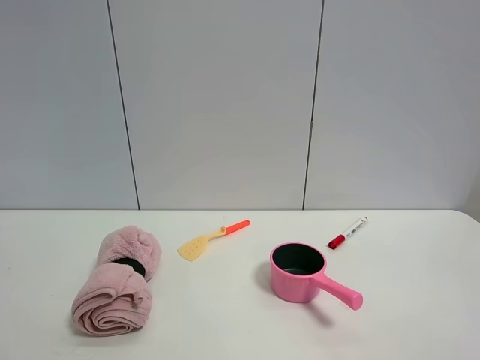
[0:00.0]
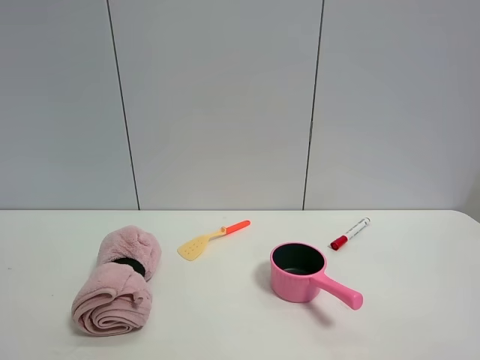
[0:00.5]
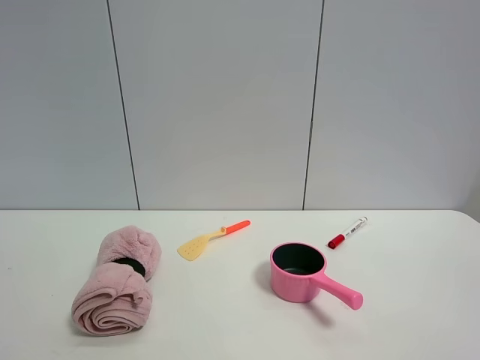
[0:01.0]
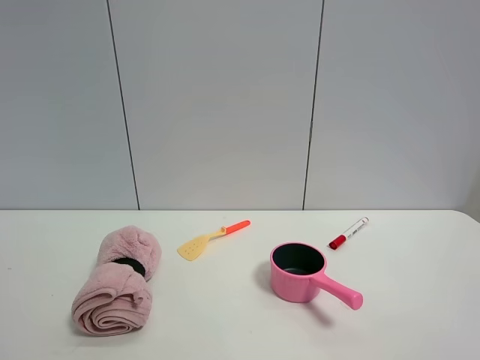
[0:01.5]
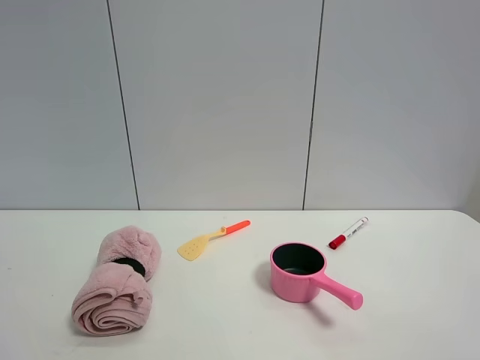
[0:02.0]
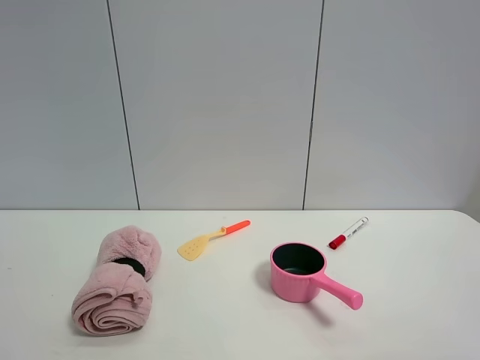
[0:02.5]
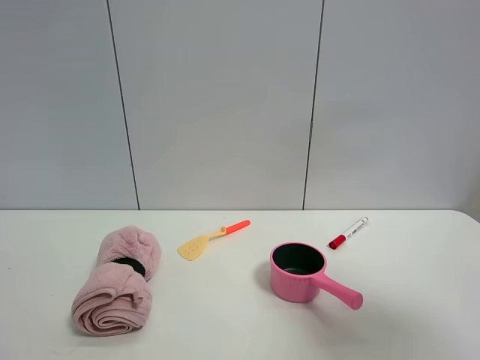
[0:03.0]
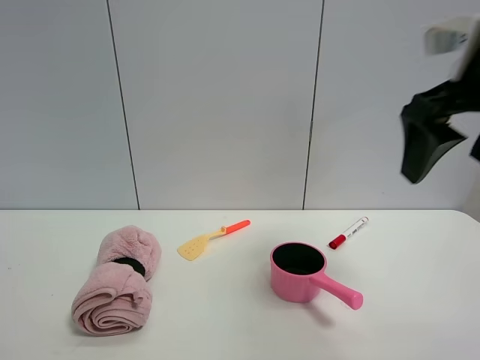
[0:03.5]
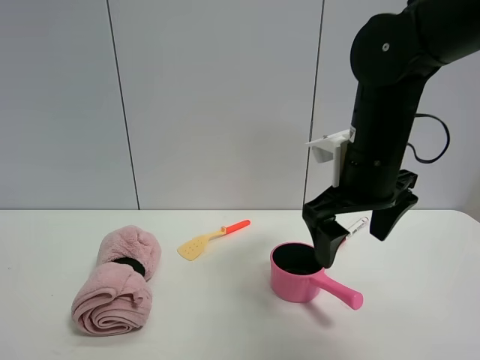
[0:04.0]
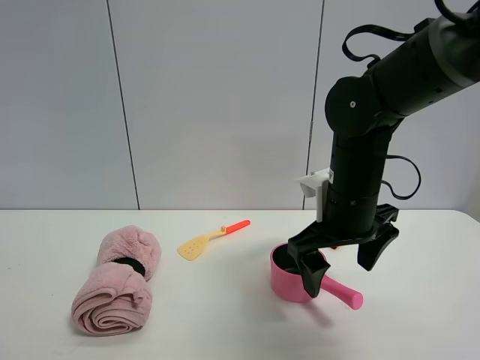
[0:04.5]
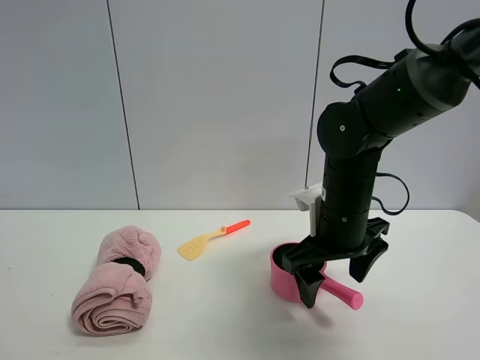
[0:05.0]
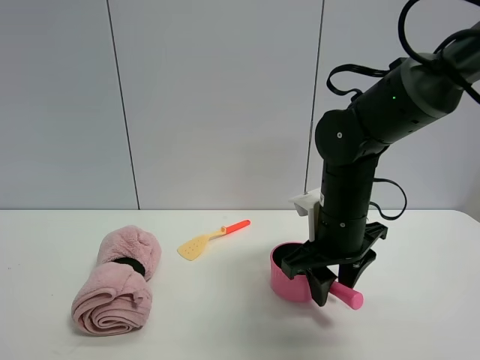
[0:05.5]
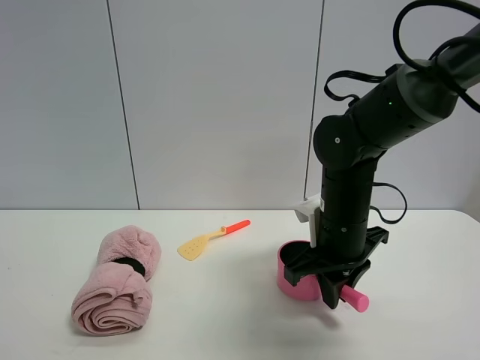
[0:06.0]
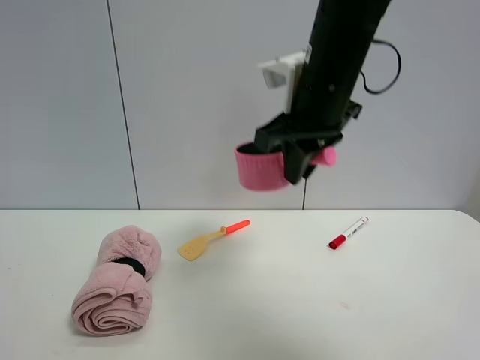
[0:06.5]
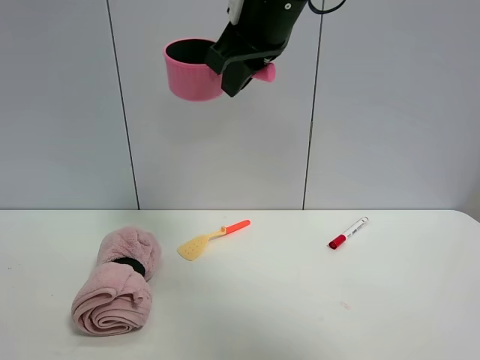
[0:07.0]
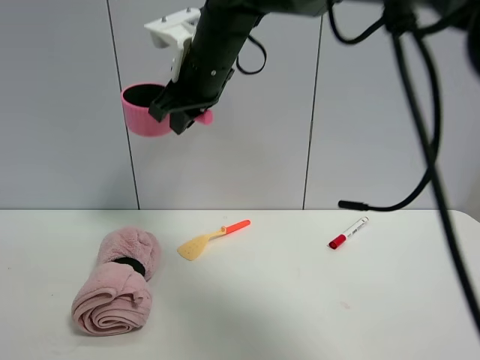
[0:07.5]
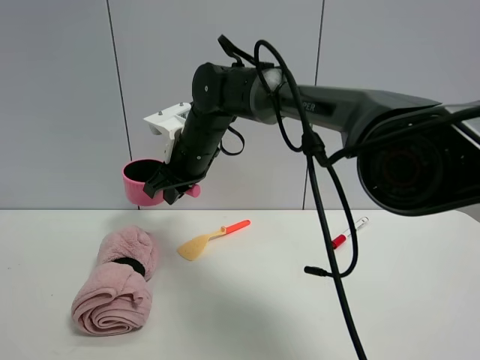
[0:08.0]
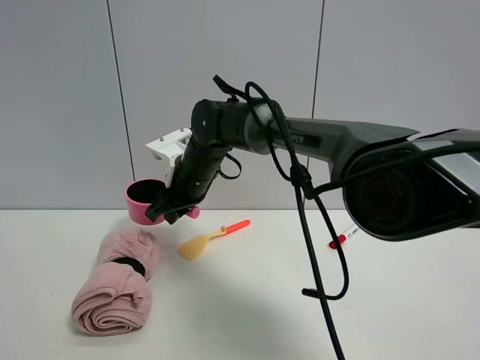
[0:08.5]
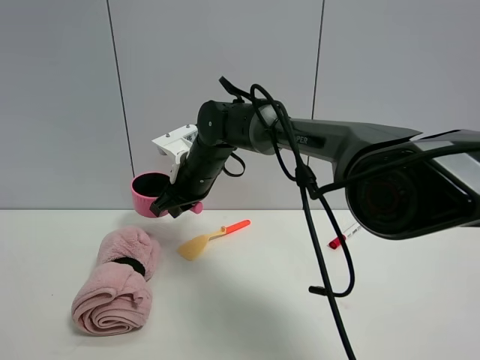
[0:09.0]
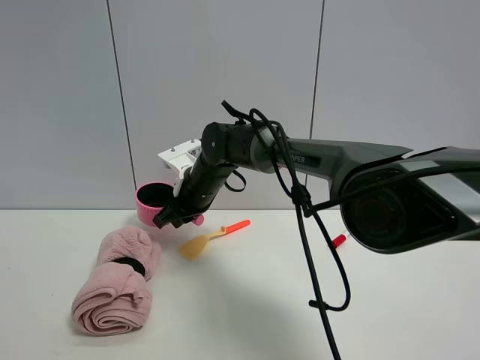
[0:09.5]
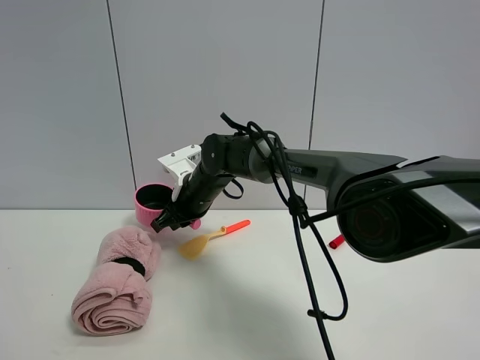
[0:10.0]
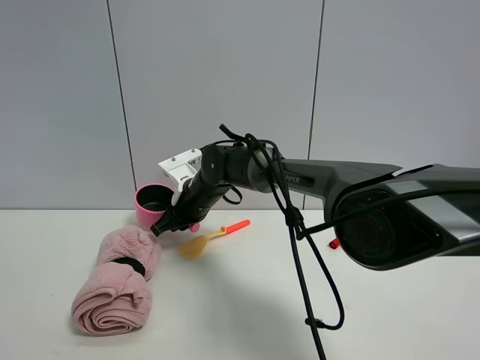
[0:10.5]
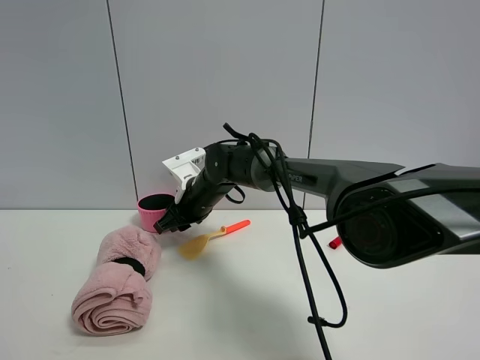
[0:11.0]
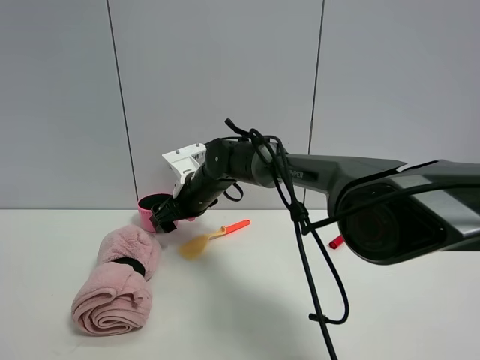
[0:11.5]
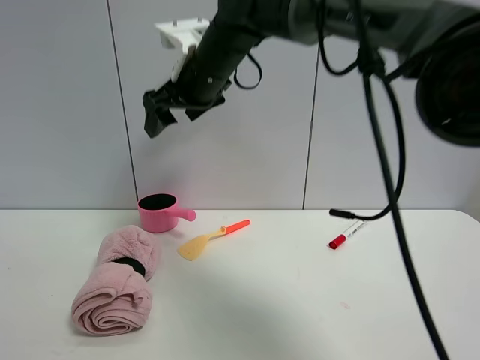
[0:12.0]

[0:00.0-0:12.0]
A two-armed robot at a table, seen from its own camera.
Task of the whole recording: the gripper move the object.
Step, 0:00.0 to 0:05.5: Grasp the pink pot with the right gripper.
Step, 0:06.0 to 0:11.5: Place the pink pot on the table with the right gripper.
0:00.0 to 0:02.0: Neither gripper changes place.
0:02.0 to 0:04.0: The right gripper goes some 35 cm forward and to the left.
0:04.0 to 0:06.0: The right gripper goes about 10 cm downward, and closes its fingers.
0:06.0 to 0:08.0: The right gripper goes some 20 cm to the left and forward, and reaches roughly 25 cm upward, then returns.
0:08.0 to 0:10.0: The right gripper goes about 10 cm downward.
0:10.0 to 0:12.0: The right gripper moves upward, roughly 20 cm, and opens.

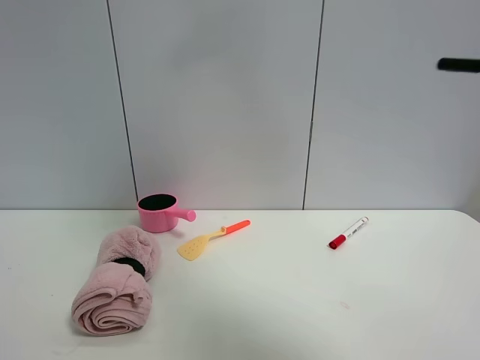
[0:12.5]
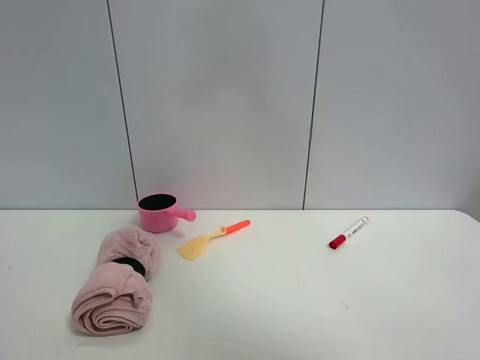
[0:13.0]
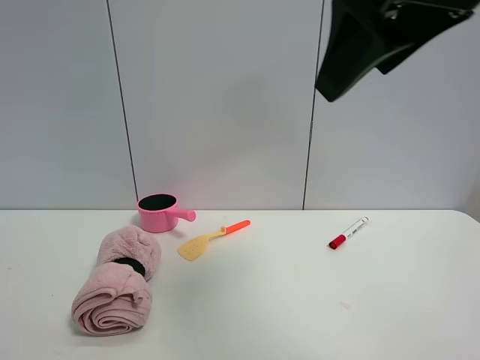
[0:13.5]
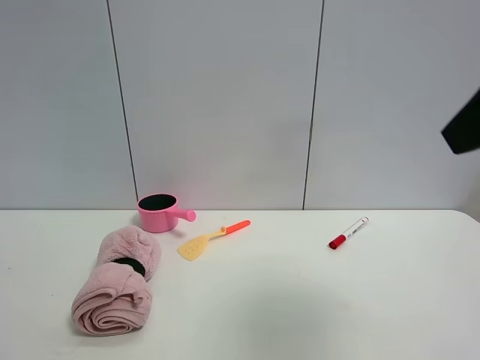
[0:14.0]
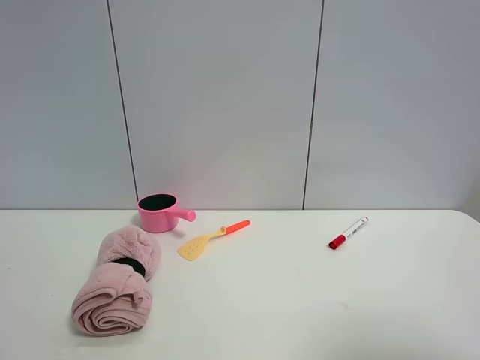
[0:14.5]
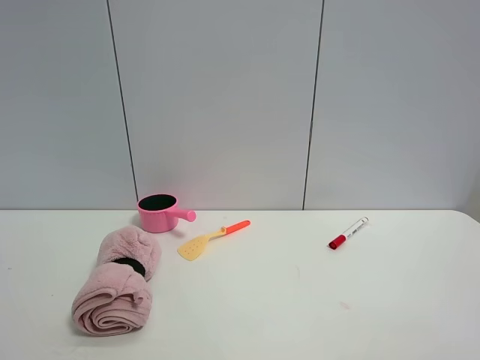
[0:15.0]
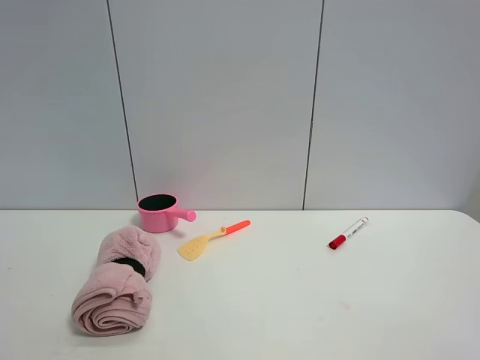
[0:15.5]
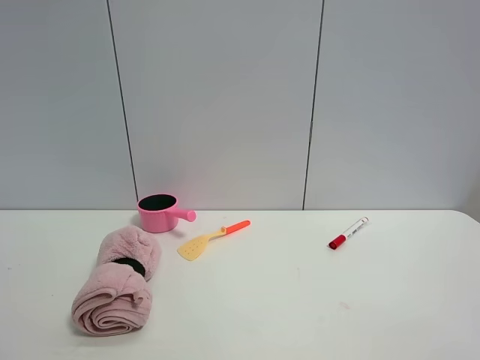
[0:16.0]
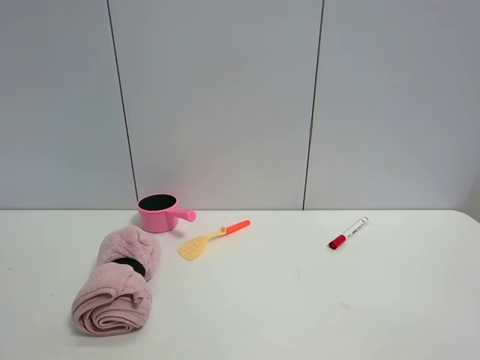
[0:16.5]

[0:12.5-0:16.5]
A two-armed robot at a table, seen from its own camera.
Task of the whole recording: the gripper move the object.
0:12.5 to 0:14.5: The right gripper is displaced to the right, backward and downward by roughly 40 cm.
0:14.5 to 0:16.5: The right gripper travels backward by approximately 5 cm.

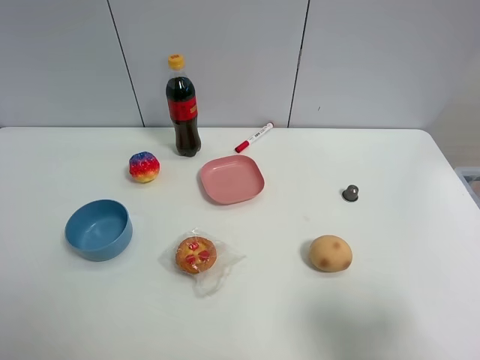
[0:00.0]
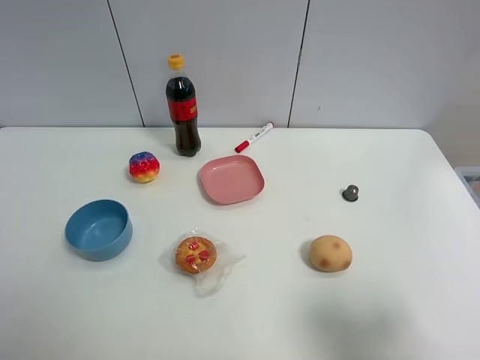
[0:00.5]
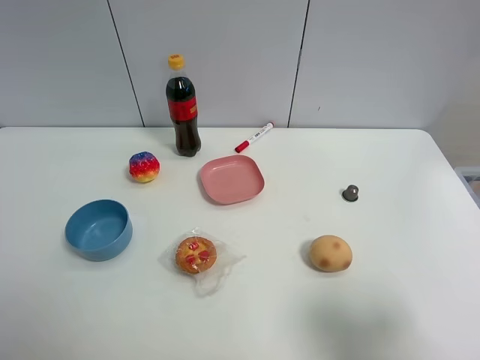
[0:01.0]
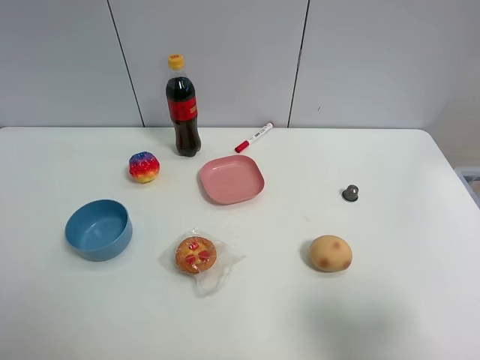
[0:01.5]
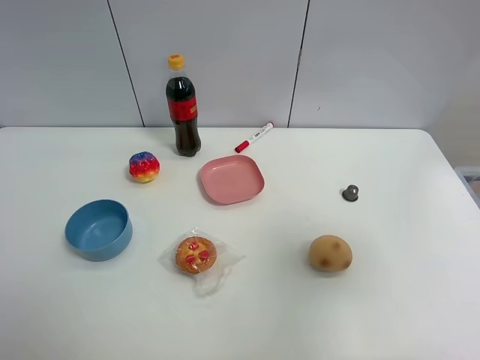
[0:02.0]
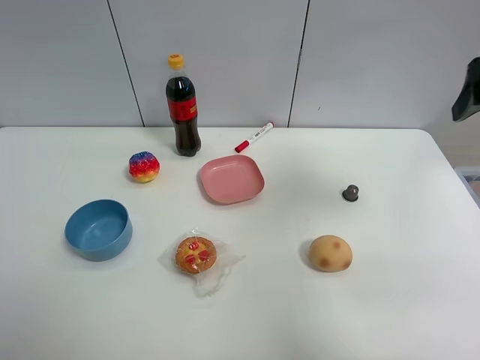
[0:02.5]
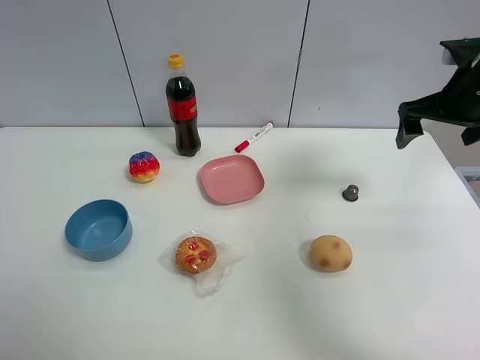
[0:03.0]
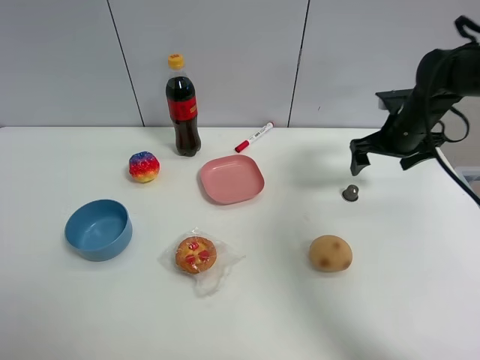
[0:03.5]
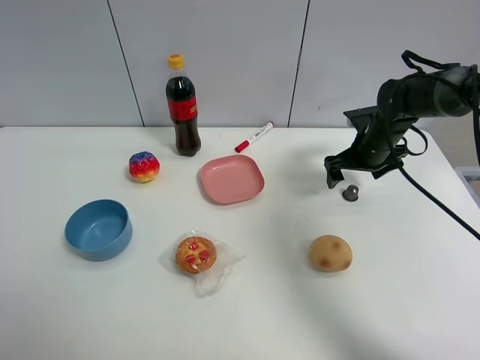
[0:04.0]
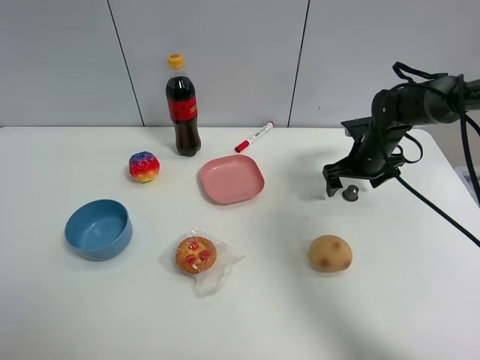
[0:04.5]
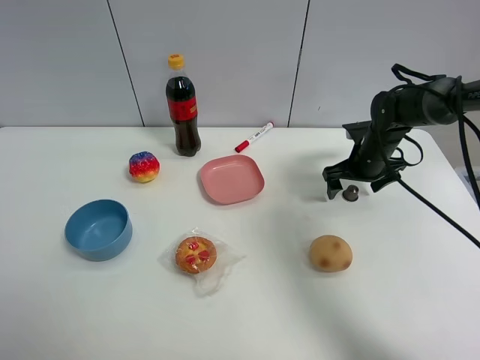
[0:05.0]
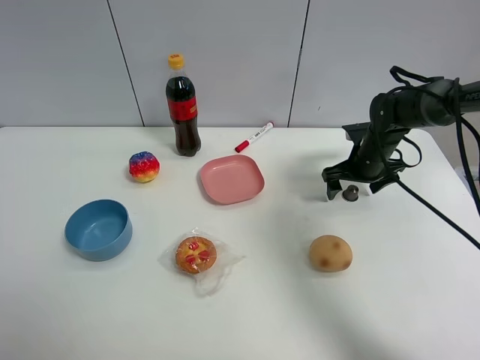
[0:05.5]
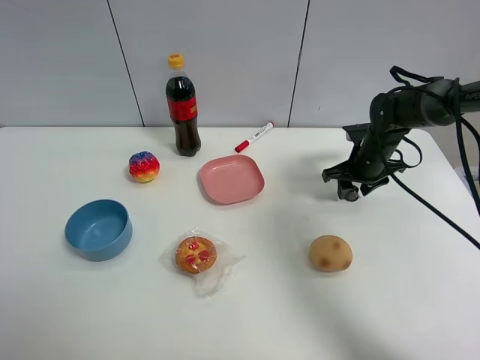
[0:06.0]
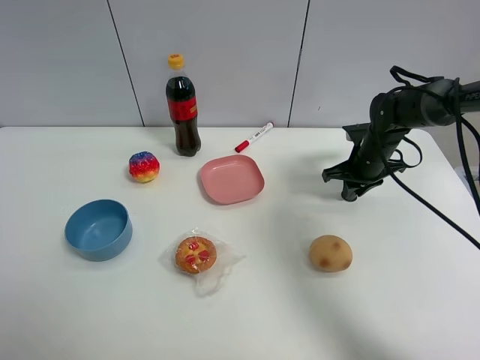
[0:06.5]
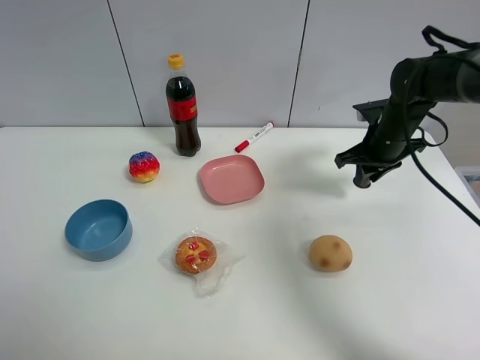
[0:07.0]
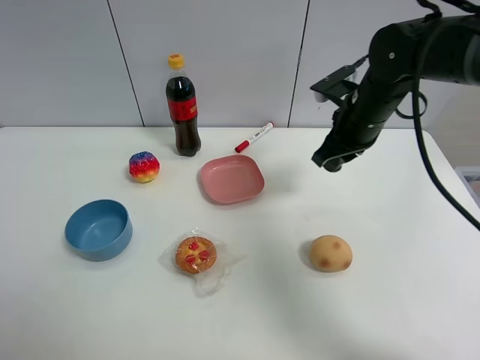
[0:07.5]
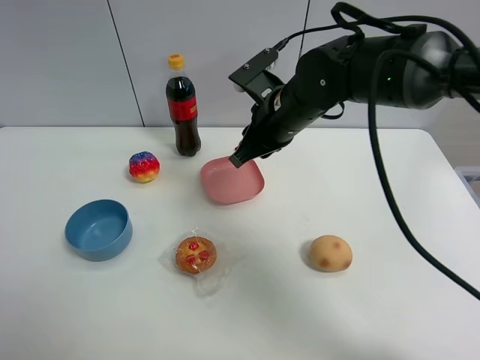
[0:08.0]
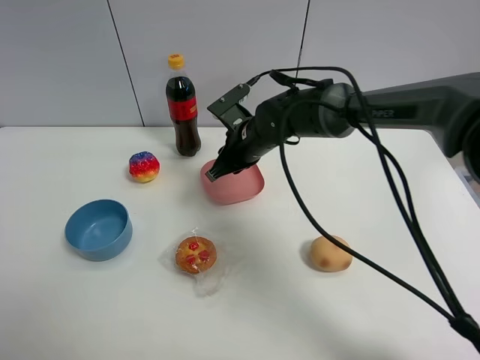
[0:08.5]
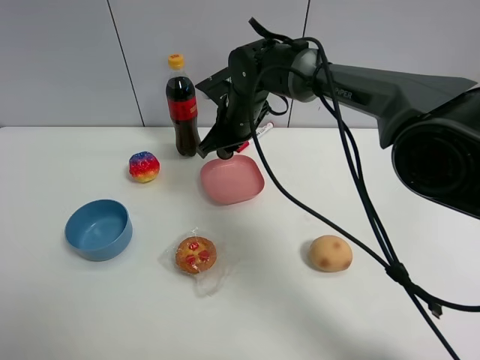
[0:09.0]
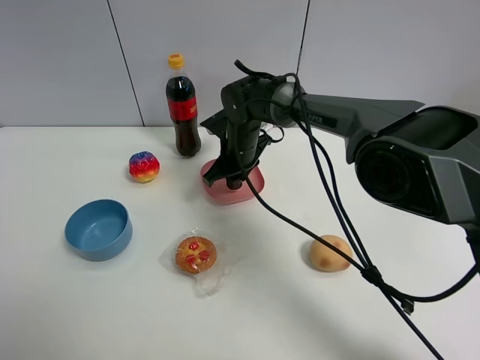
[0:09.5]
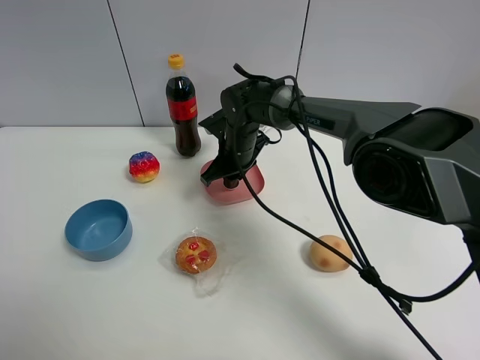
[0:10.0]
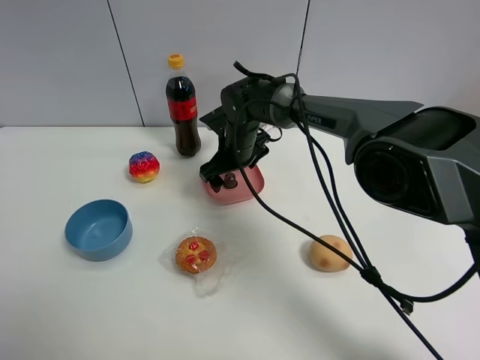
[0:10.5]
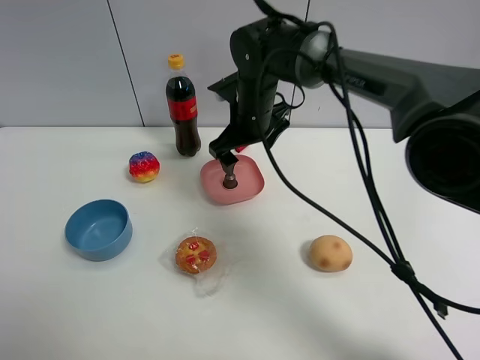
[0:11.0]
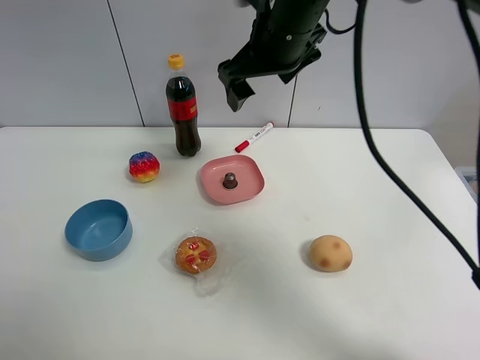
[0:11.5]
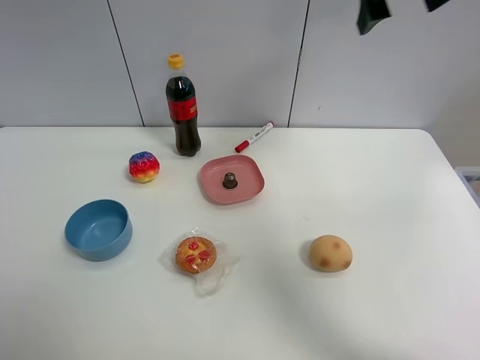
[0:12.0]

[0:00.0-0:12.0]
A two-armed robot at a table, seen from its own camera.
Task of the whole recording: the gripper move the object.
Step, 0:00.0 to 0:06.0: Grasp the coffee capsule with the right gripper.
Step, 0:06.5 to 0:10.0: Place the coffee capsule into the pink plate with the right gripper.
0:00.0 to 0:02.0: The right gripper travels upward and forward by about 15 cm.
0:02.0 to 0:04.0: The right gripper moves forward and downward, some 40 cm.
0:04.0 to 0:06.0: The right gripper closes up.
0:06.0 to 0:08.0: The right gripper travels to the left and upward by approximately 20 cm.
0:08.0 to 0:10.0: The right gripper moves downward, forward and to the left, some 15 cm.
0:10.0 to 0:12.0: The right gripper moves upward and to the right, some 40 cm, and opens.
